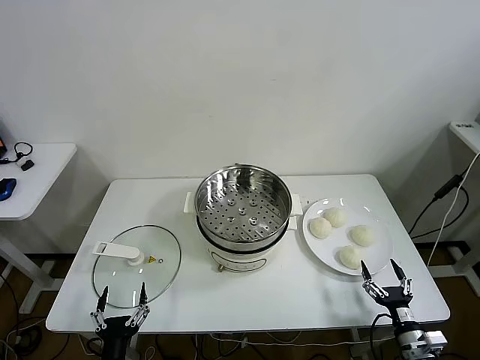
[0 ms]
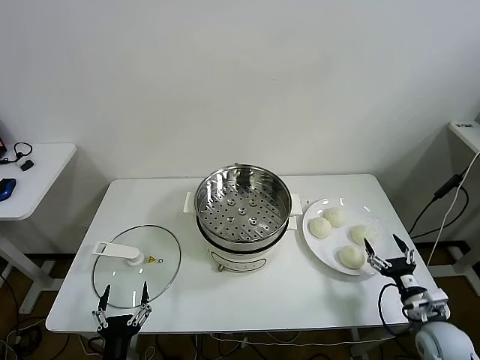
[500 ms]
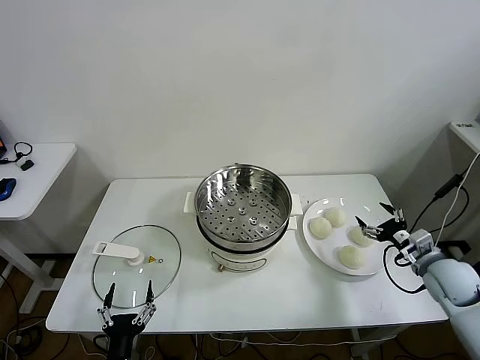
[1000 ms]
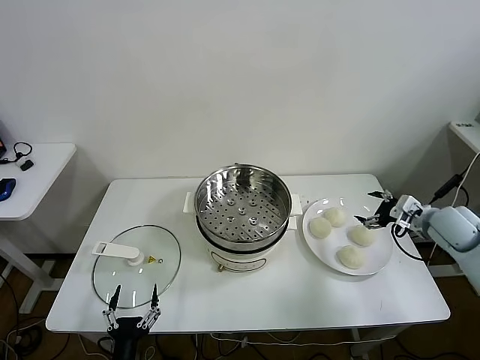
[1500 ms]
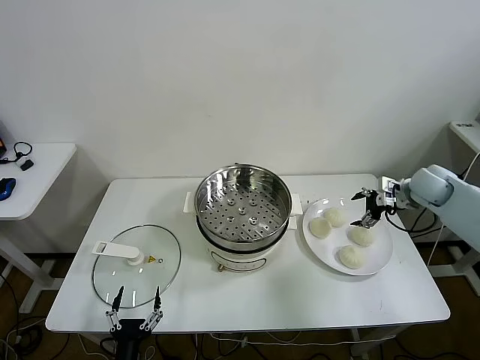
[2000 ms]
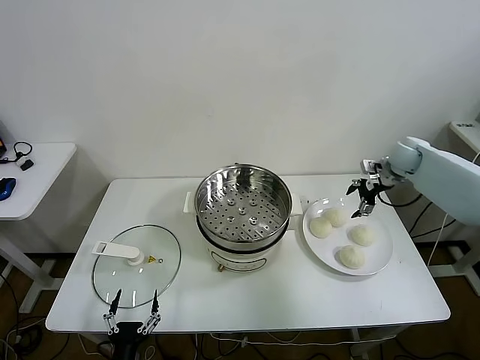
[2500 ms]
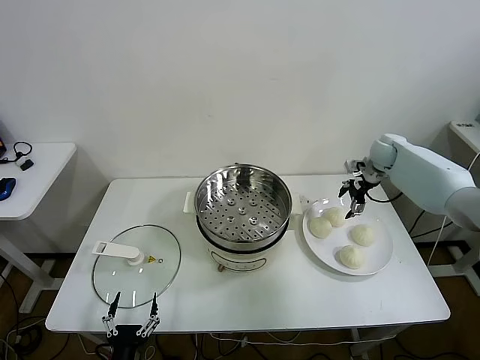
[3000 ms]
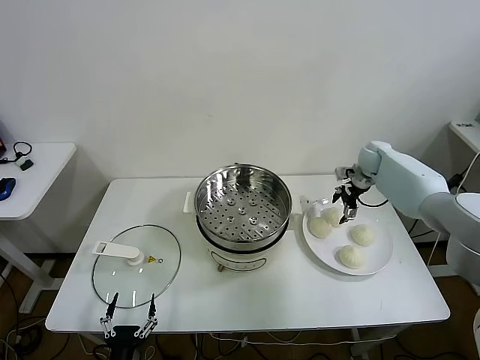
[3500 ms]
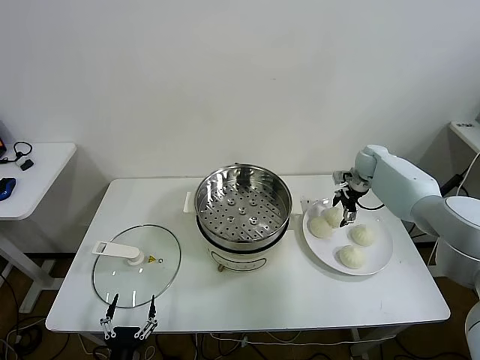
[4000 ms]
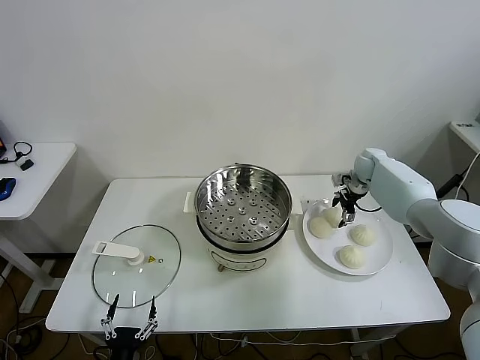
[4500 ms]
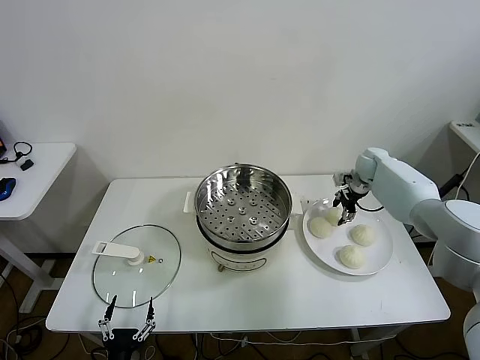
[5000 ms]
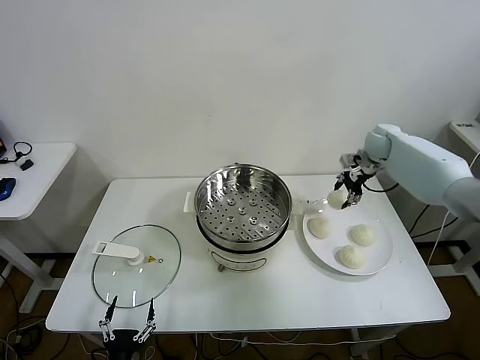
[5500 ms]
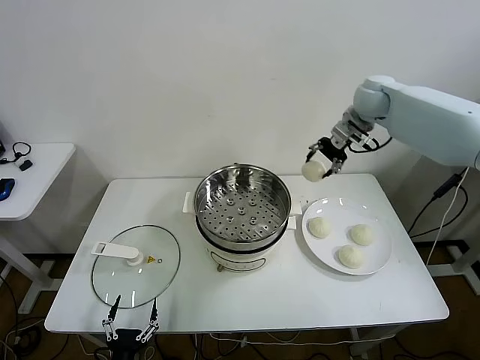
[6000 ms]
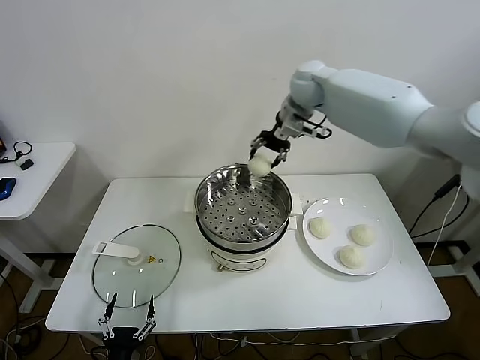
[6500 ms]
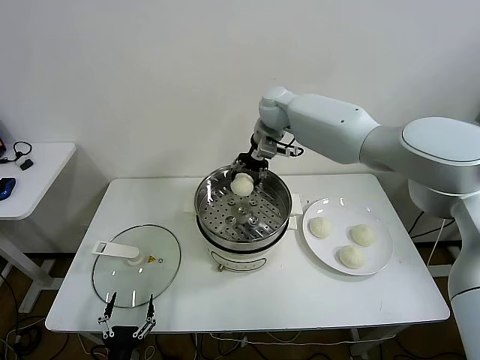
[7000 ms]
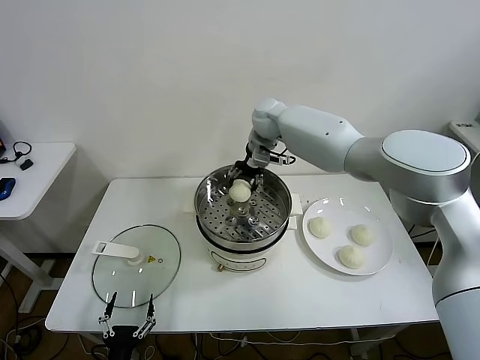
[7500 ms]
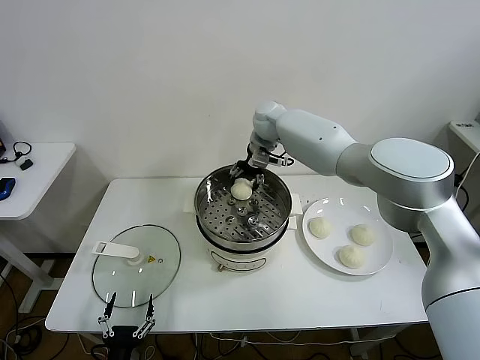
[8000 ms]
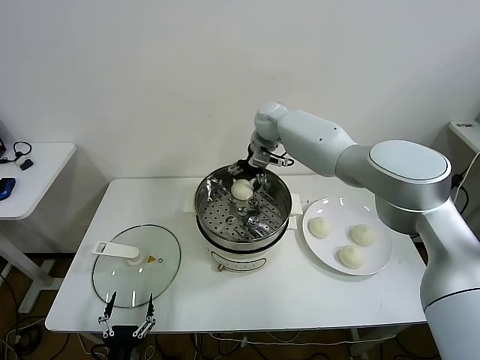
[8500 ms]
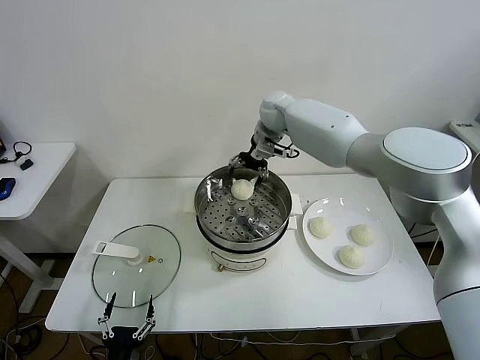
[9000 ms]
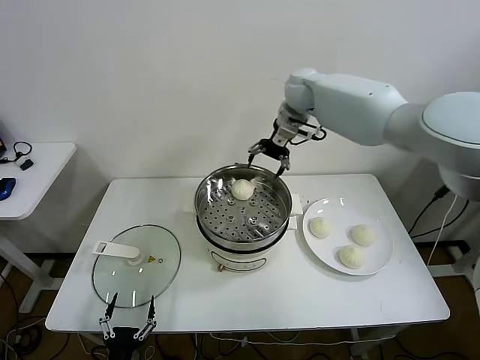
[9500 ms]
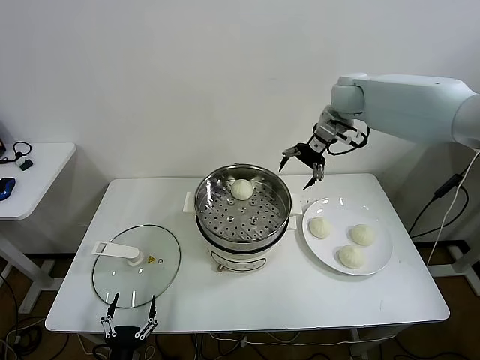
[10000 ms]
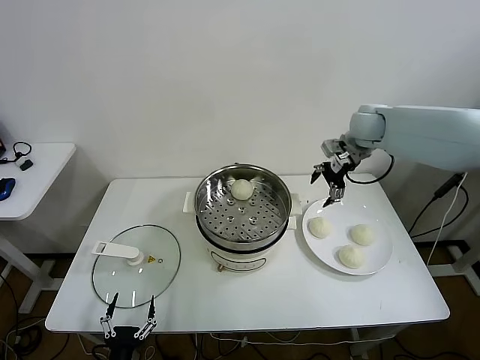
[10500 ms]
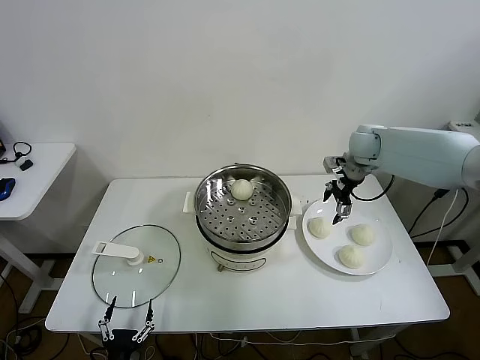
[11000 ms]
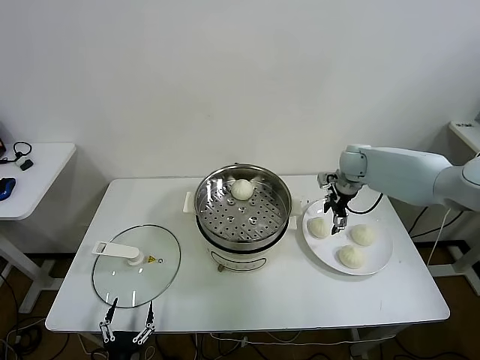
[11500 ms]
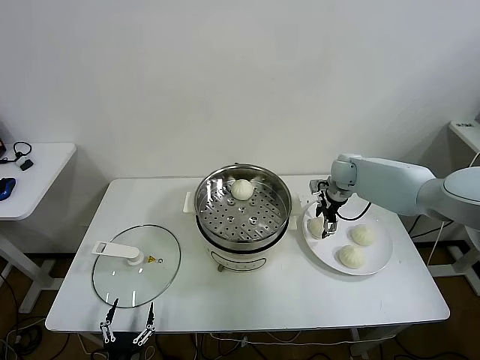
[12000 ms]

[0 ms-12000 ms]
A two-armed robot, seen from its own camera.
Task of the whole recording: take steamed baozi put them in steamer.
Step, 0 ms to 4500 ms: Grasp the baozi in the plate with right gripper.
Step, 5000 ms to 8500 ms: Place the baozi on the steamer with right gripper.
2000 ms to 4000 ms: The right gripper goes roughly 15 cm forward, to the left and downward.
4000 ms to 6000 ms: The right gripper heads upward and to the left, covering some 25 cm, and closes its fingers.
6000 ms to 8000 ms: The right gripper is displaced to the left and downward by about 20 cm.
8000 ms to 10000 ms: The right gripper shifts about 20 cm to the right and upward, and opens its fingers.
10000 ms to 12000 ms: The right gripper moves downward, about 20 cm.

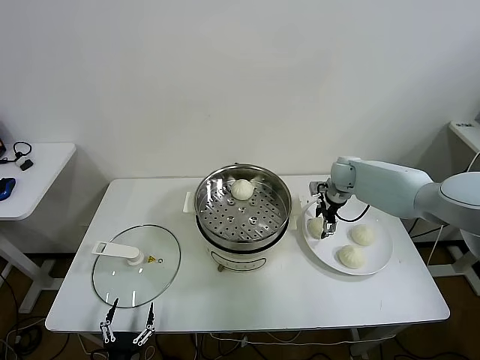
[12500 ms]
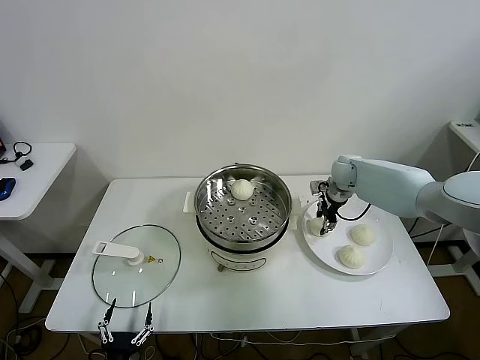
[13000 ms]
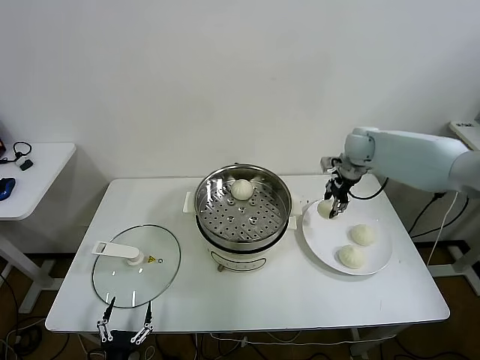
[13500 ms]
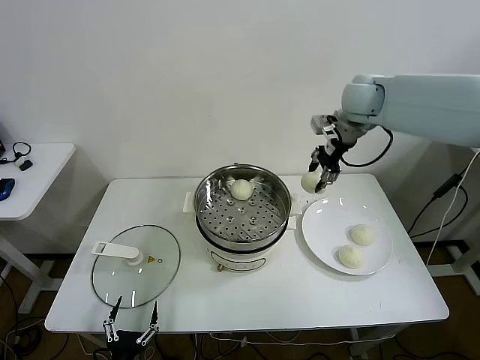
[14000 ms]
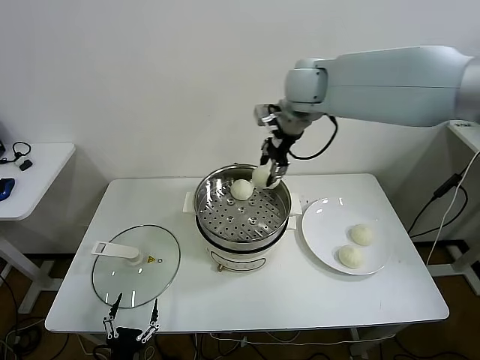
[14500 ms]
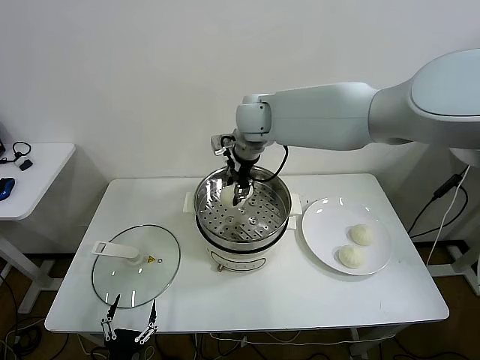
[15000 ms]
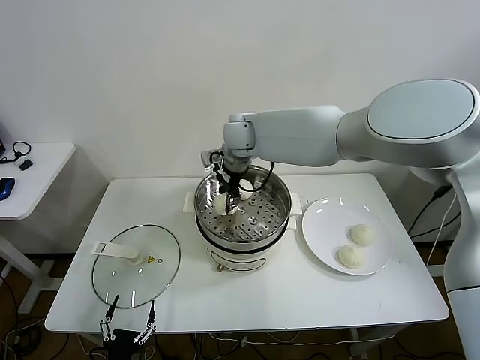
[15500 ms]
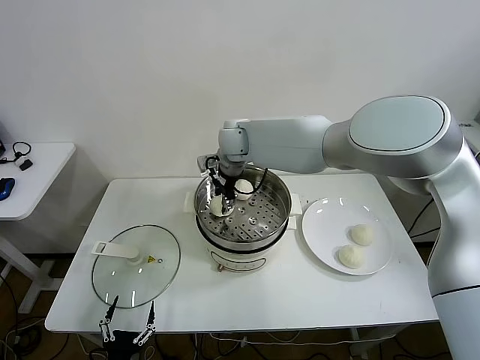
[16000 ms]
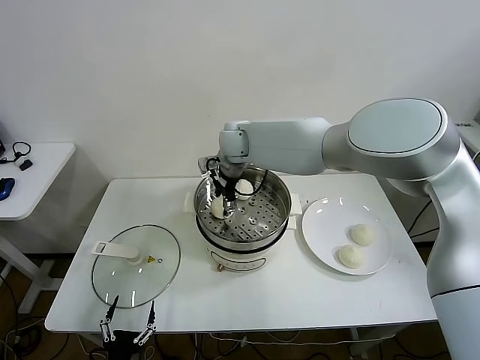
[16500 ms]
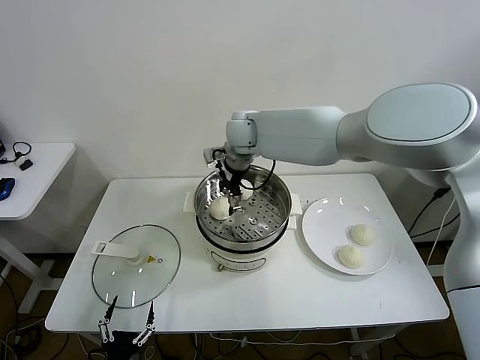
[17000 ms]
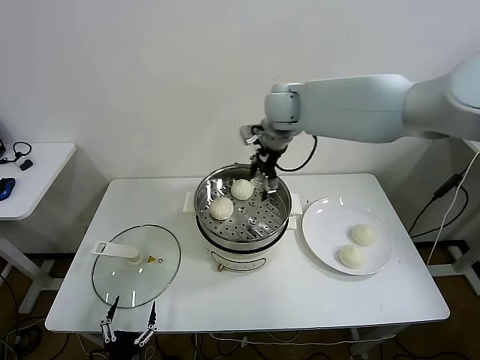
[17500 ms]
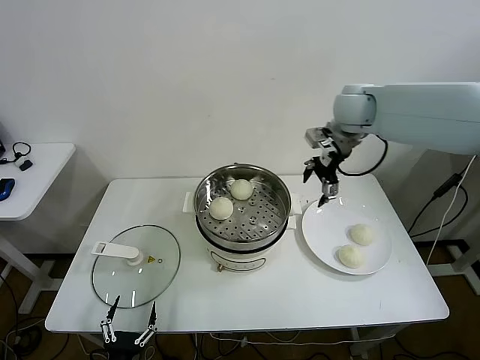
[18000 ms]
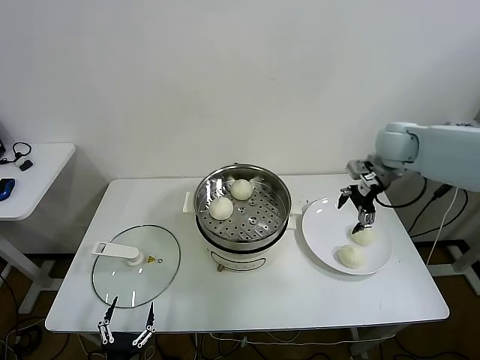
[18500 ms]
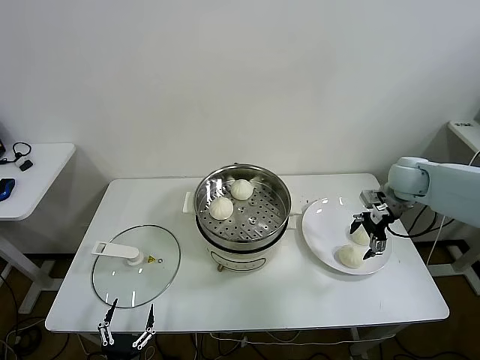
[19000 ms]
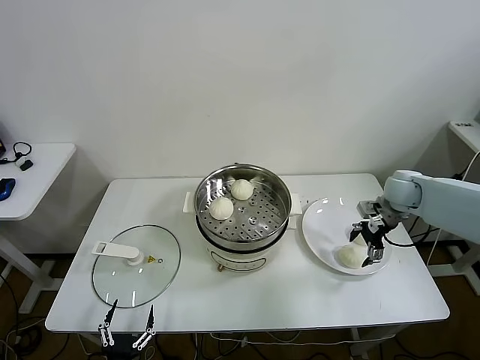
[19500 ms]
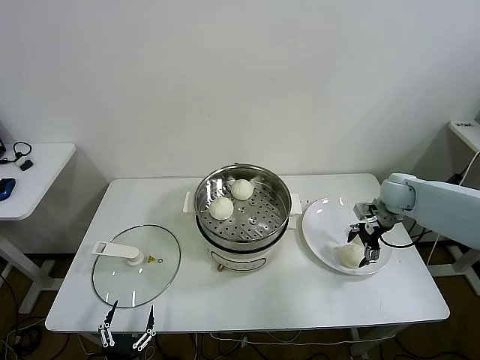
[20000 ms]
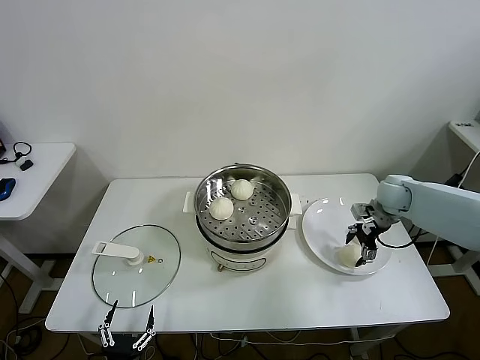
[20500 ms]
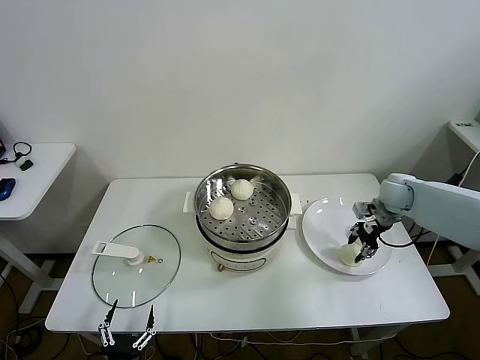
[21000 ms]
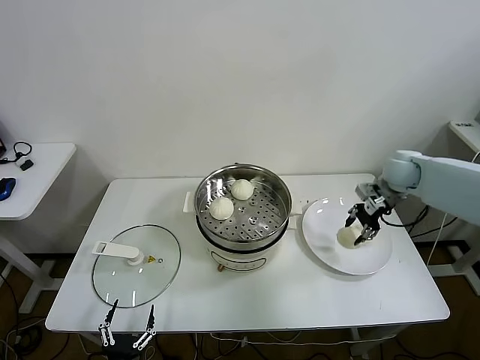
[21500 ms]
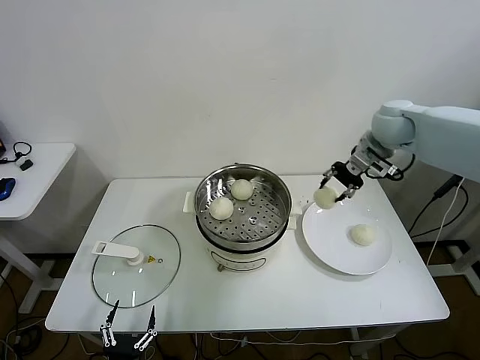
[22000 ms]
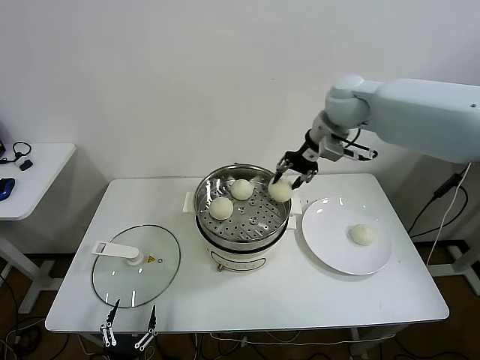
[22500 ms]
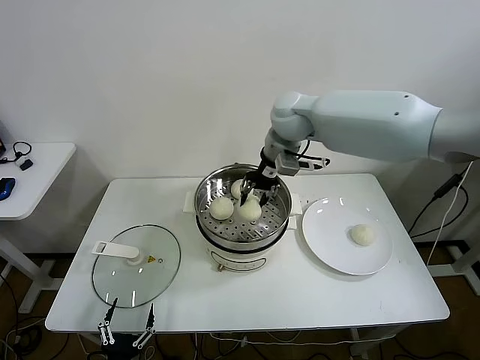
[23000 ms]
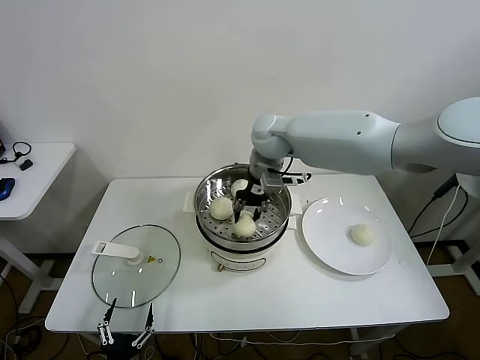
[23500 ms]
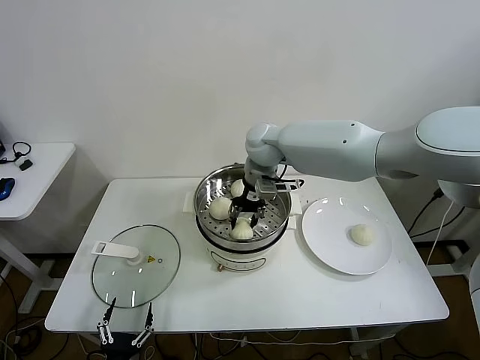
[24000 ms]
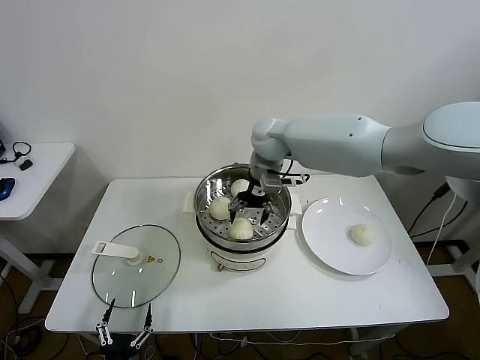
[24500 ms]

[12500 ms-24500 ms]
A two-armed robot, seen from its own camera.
Task of the whole recording: take steamed baozi put them in steamer.
Step, 13500 ms to 16500 ms: Place the baozi on the steamer with right gripper.
Step, 17000 ms to 20500 ms: Grasp the baozi in the plate with right gripper.
12500 ms to 14500 ms: The right gripper is displaced upward and to the left by approximately 35 cm, and closes up.
14500 ms to 16500 ms: The right gripper shifts approximately 20 cm downward and to the left, and opens its fingers.
16500 ms to 18500 ms: The right gripper shifts roughly 35 cm to the right.
18500 ms to 20500 ms: The right gripper heads downward, covering roughly 15 cm.
20500 ms to 22500 ms: The right gripper shifts some 30 cm upward and to the left, and closes.
22500 ms to 24500 ms: The right gripper is displaced to the left and downward by some 15 cm, and opens its fingers.

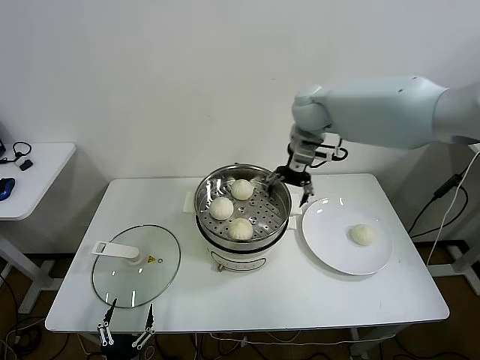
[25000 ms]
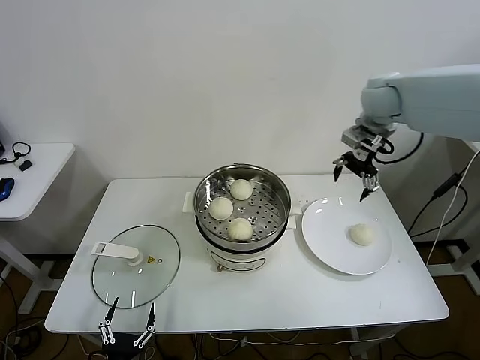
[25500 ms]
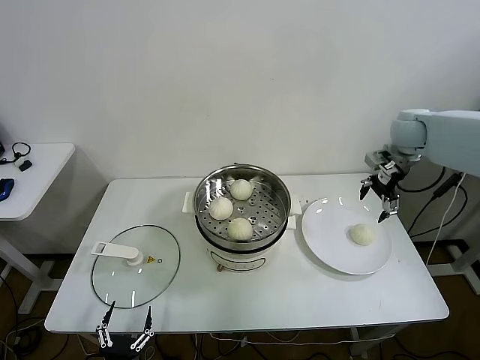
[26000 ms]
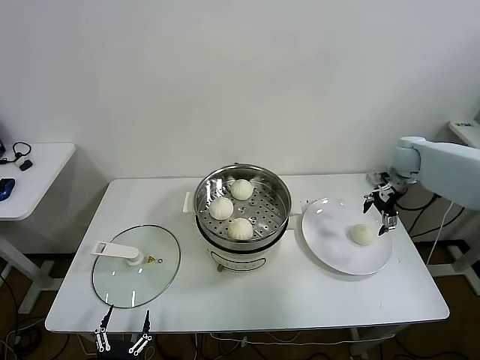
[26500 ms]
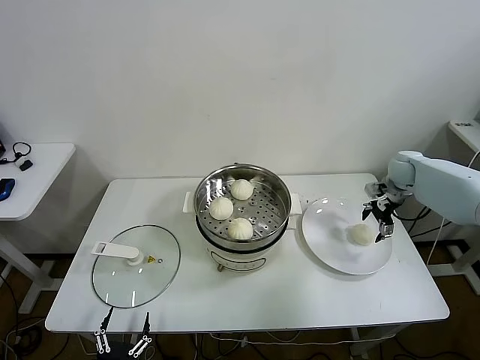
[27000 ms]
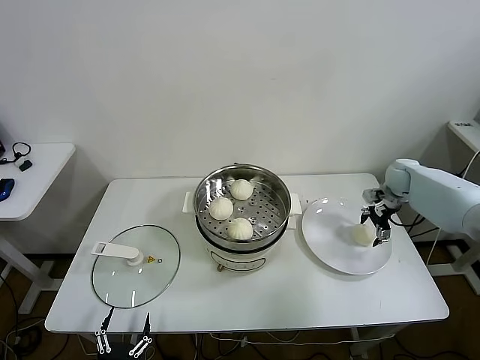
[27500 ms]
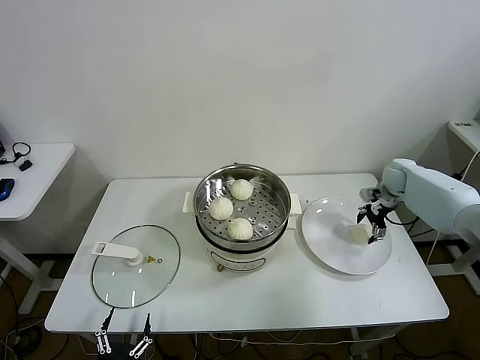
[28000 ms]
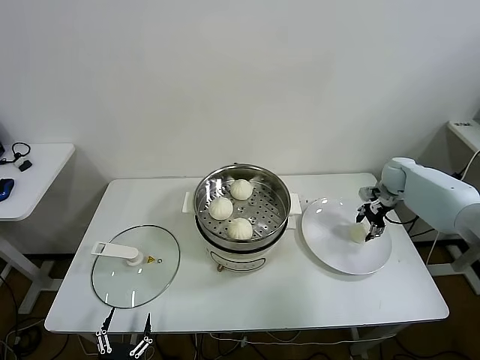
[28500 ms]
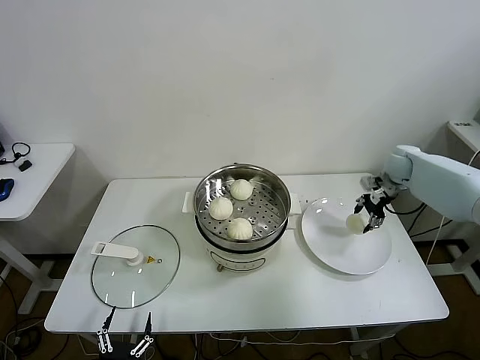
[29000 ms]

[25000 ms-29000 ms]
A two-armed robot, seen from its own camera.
Task of the whole recording: take steamed baozi put them in steamer.
Step, 25000 ms to 28000 ms: Grasp the baozi in the plate with right gripper.
25000 ms to 27000 ms: The right gripper travels to the right and downward by roughly 35 cm.
27000 ms to 29000 ms: The right gripper closes up.
